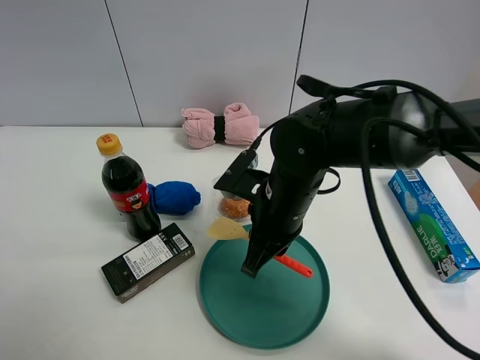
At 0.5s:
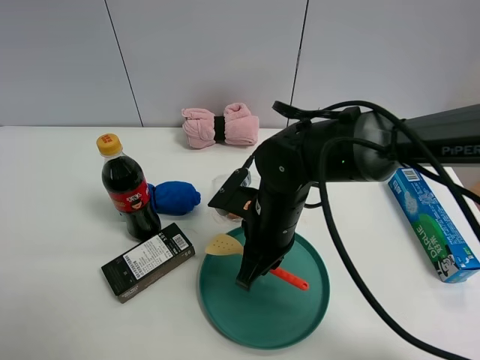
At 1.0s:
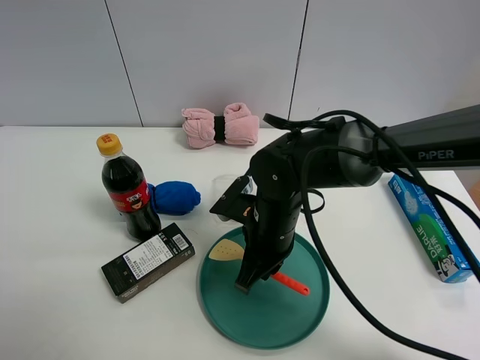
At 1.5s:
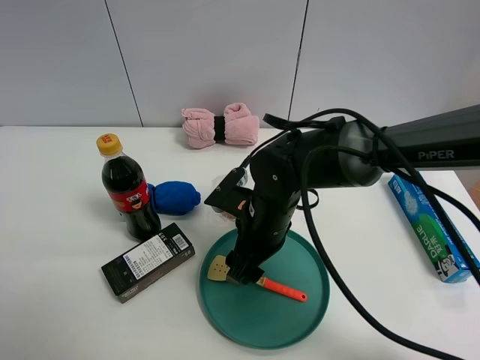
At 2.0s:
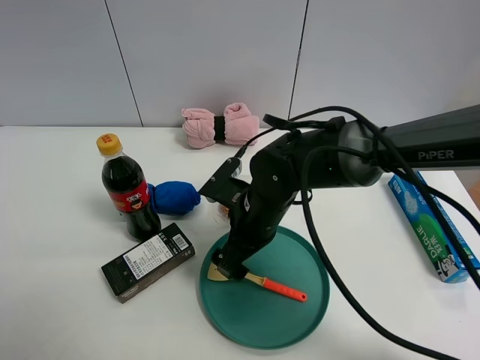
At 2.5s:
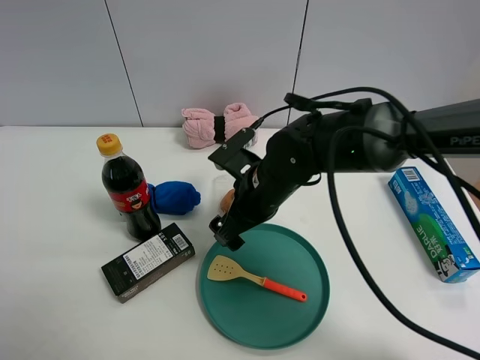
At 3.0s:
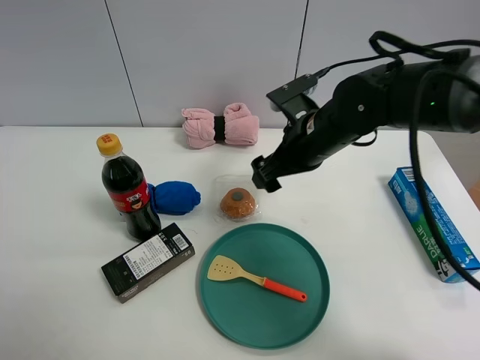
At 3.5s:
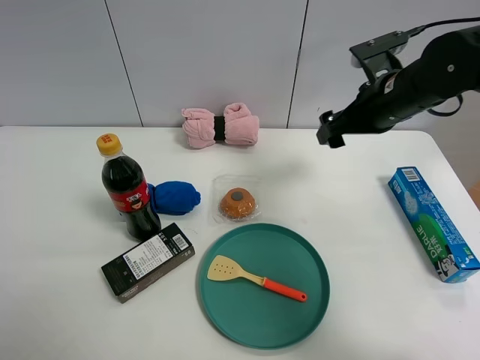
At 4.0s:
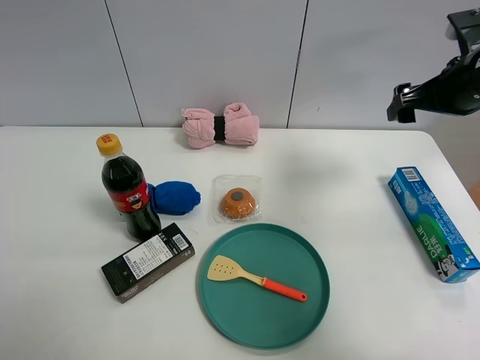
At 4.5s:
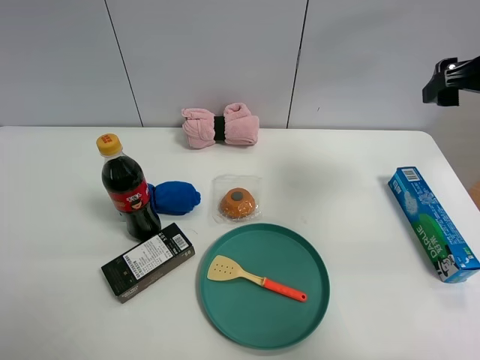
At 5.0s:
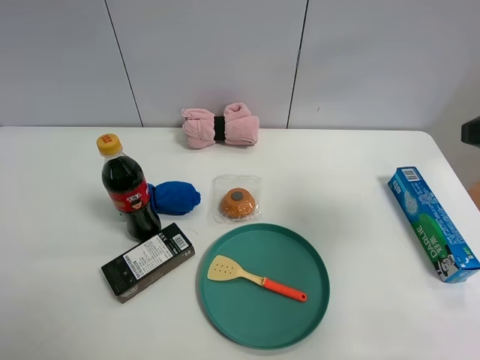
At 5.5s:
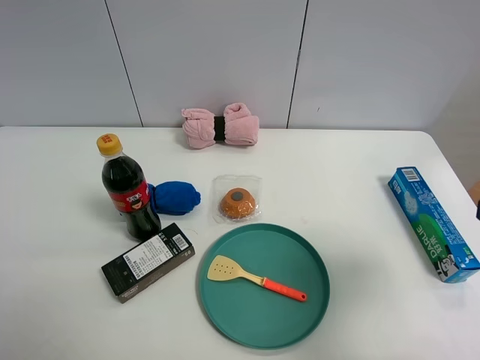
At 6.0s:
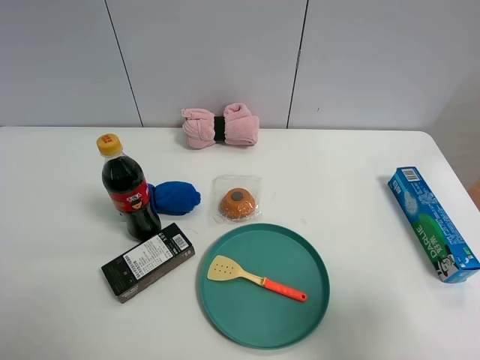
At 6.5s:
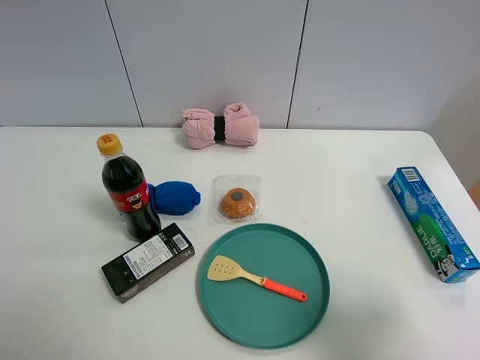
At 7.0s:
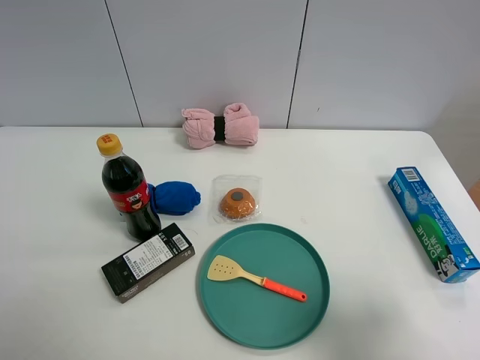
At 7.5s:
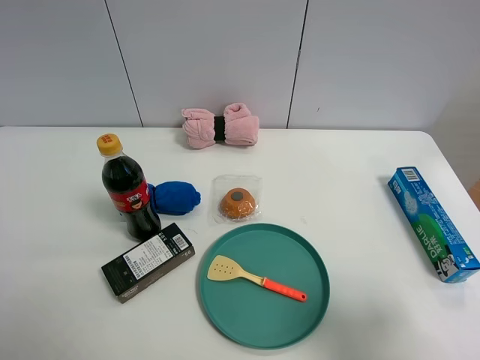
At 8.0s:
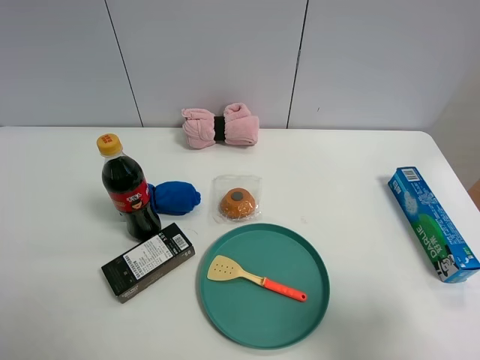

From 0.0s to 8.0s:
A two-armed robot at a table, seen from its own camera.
Task of the whole recording: the gripper move the object.
From 0.0s to 2.0s: The right gripper opens.
From 2.0s to 4.0s: The right gripper travels to the right and upward by about 30 cm.
From 4.0s to 6.0s: The right gripper moves backward, some 30 cm.

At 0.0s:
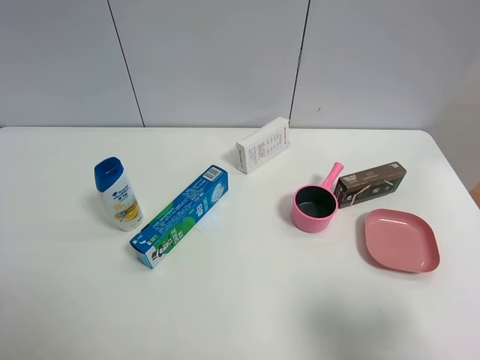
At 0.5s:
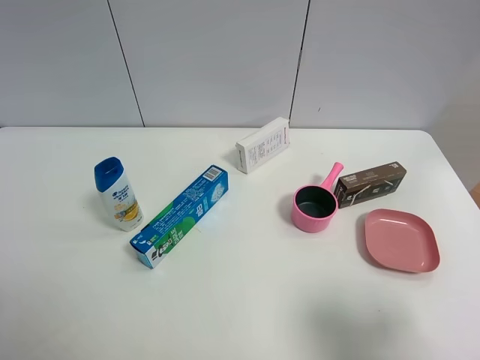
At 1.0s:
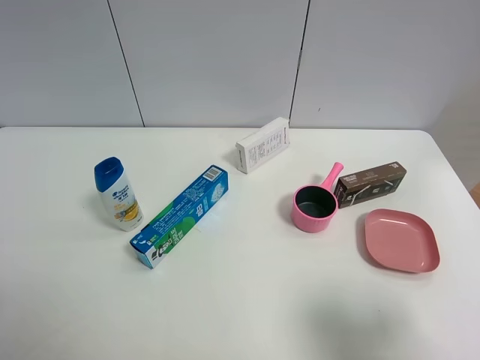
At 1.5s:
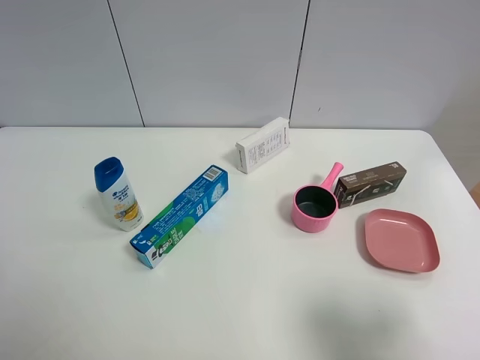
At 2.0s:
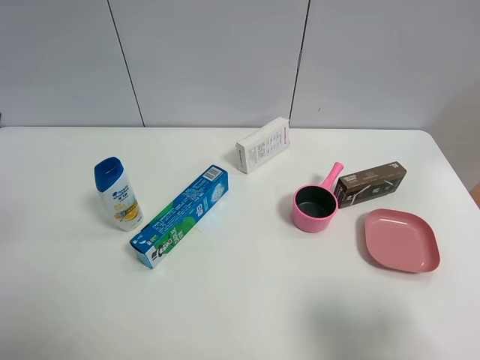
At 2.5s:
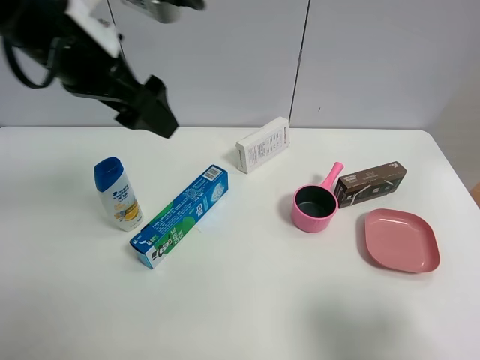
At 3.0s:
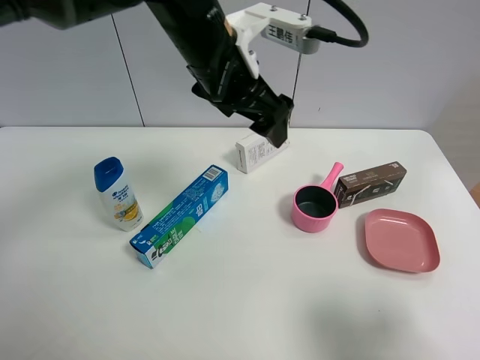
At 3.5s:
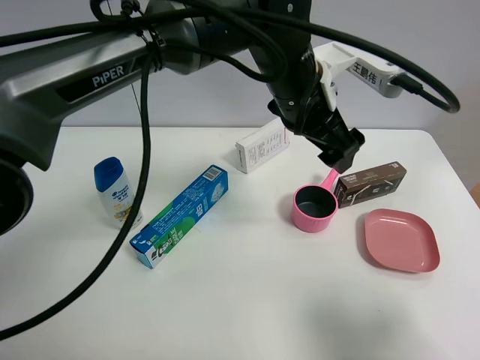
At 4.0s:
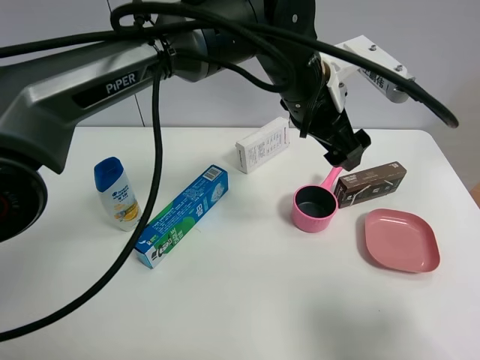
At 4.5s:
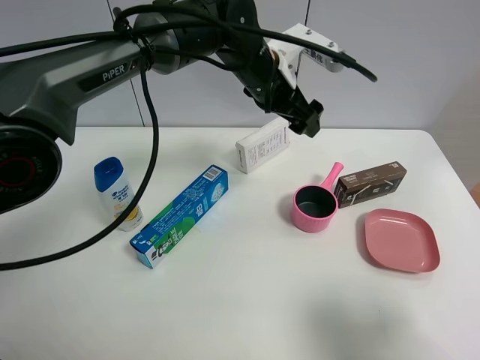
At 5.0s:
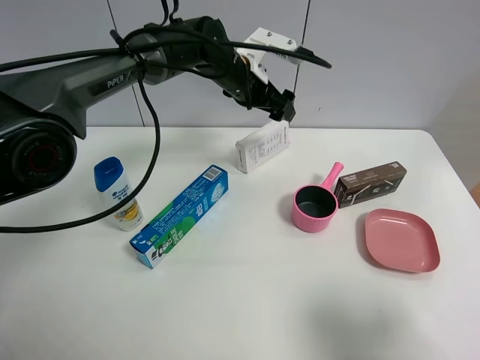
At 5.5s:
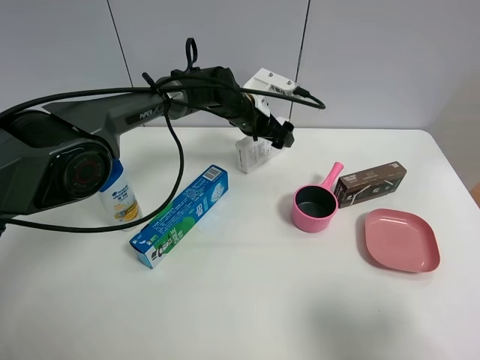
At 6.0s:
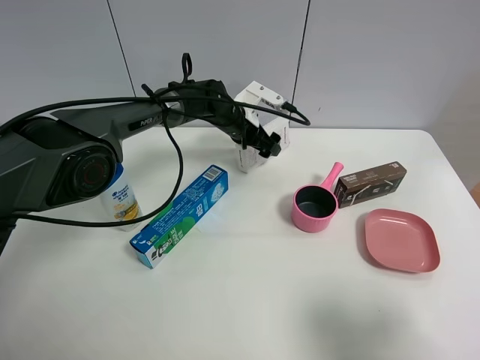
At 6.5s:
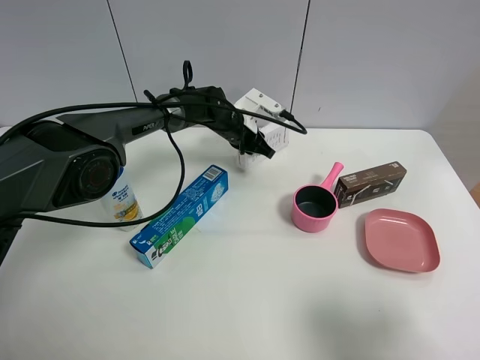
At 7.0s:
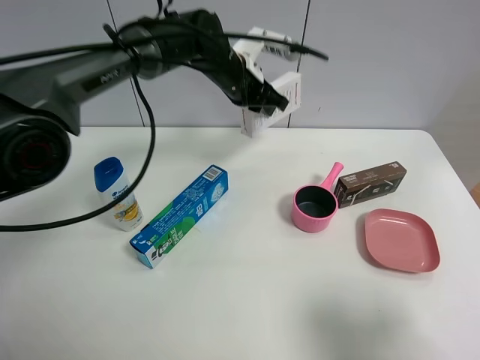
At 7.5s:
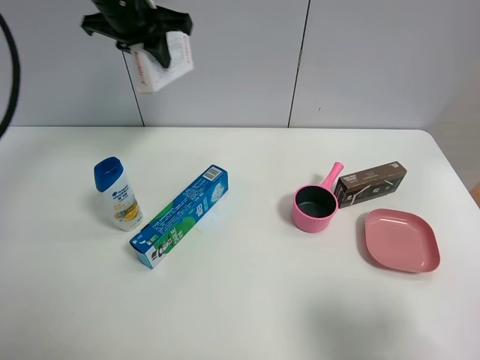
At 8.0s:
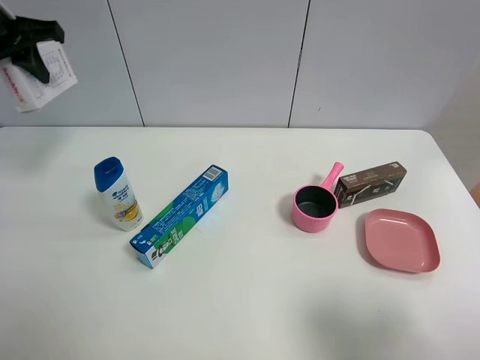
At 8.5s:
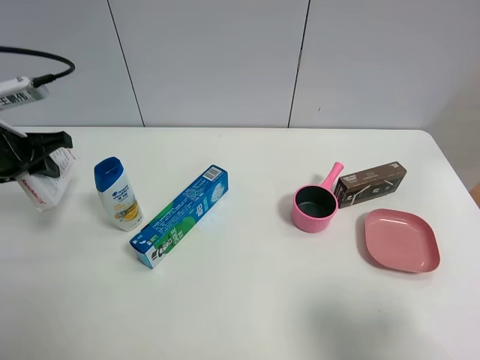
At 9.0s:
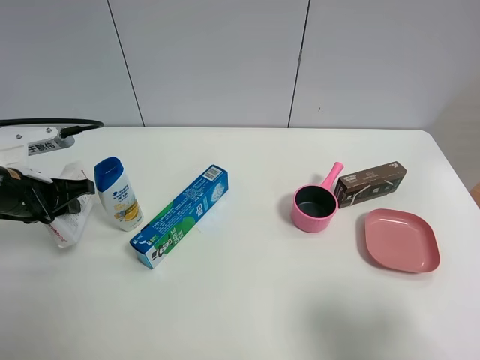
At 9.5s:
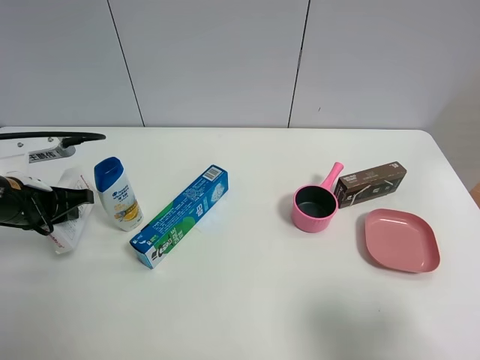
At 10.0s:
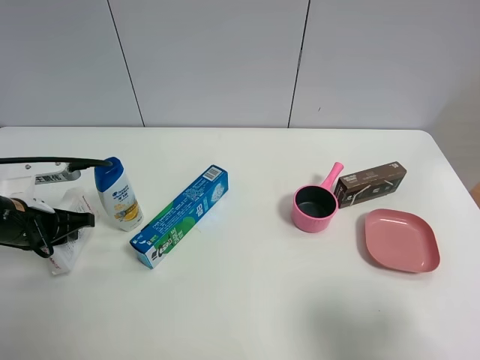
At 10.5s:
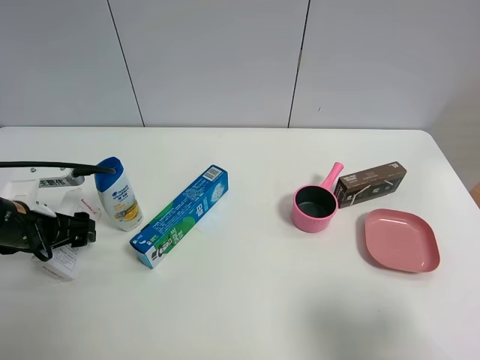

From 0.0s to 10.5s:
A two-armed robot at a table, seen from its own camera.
Task of the whole recording: the gripper move the object.
Step, from 0.0s to 6.0s: Grasp the USB box with the left gripper.
From 2.0s to 4.0s: The left gripper is displaced to the right and forward by some 40 cm.
From 4.0s to 6.5s: The left gripper is displaced downward, forward and to the left by some 25 cm, and closes.
From 6.5s to 8.5s: The left gripper goes some 40 cm to the left, backward and upward.
From 8.5s to 10.5s: The left gripper shifts about 10 cm downward and backward, and opens up.

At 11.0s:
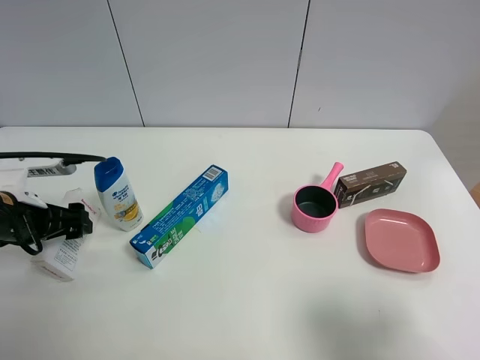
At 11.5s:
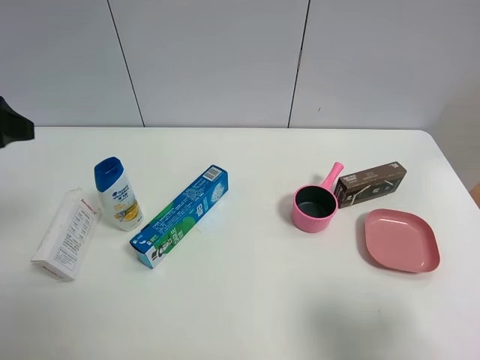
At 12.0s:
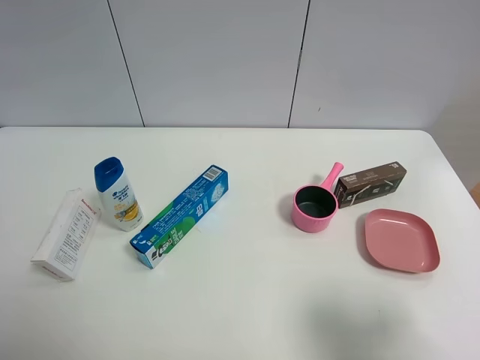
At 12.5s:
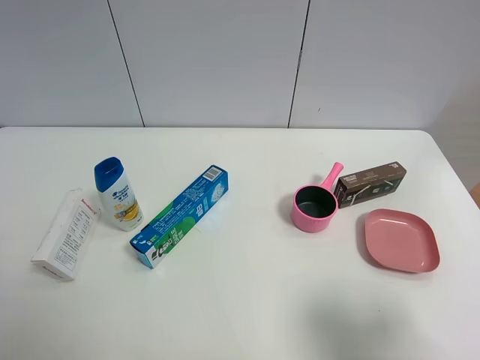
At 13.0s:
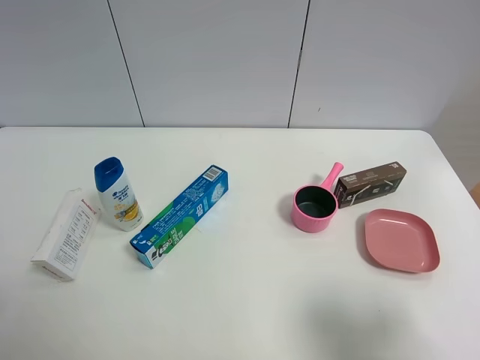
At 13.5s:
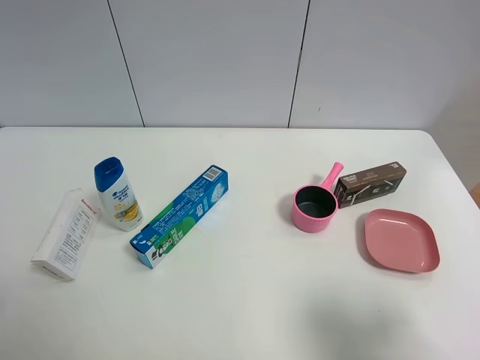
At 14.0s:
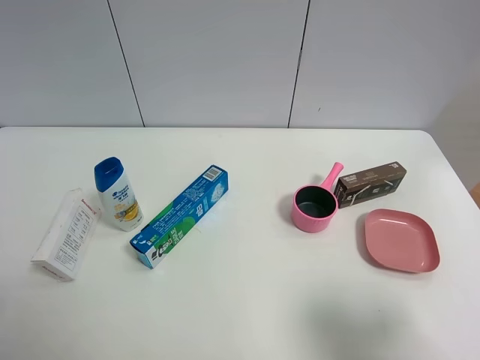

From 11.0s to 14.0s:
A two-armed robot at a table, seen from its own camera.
Task of the whole recording: the gripper move the object.
From 11.0s to 12.5s: The left gripper moves backward and upward, about 30 cm.
